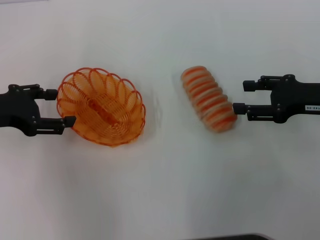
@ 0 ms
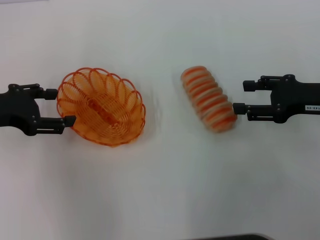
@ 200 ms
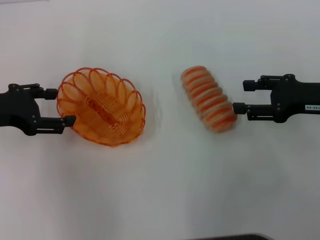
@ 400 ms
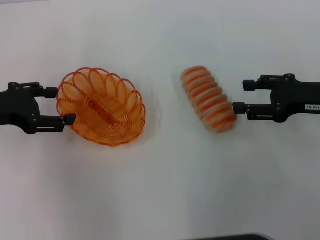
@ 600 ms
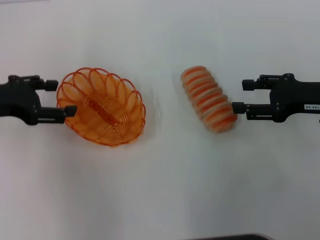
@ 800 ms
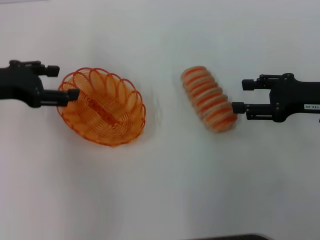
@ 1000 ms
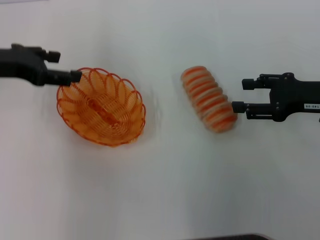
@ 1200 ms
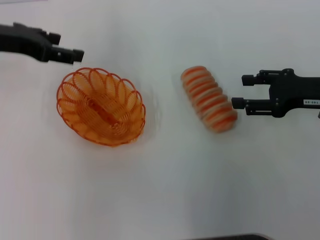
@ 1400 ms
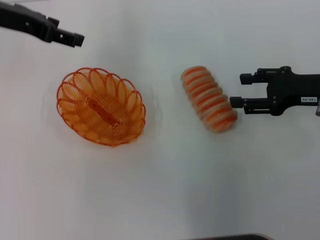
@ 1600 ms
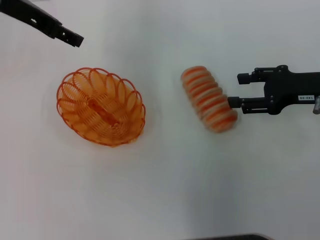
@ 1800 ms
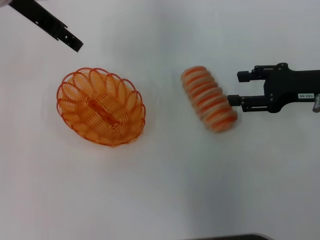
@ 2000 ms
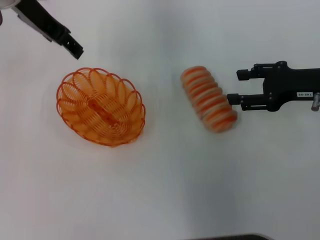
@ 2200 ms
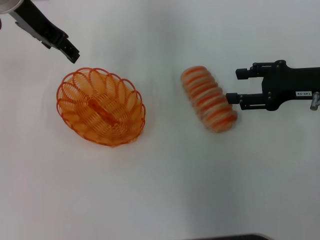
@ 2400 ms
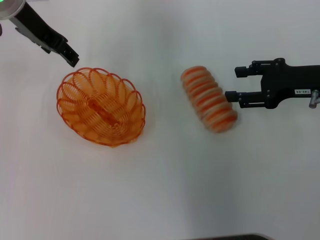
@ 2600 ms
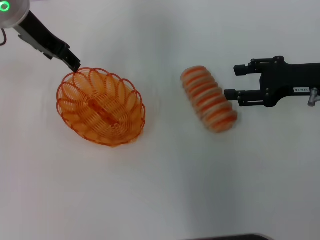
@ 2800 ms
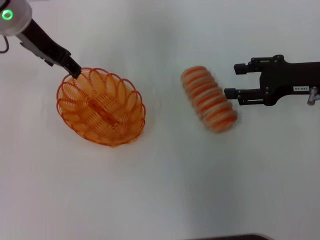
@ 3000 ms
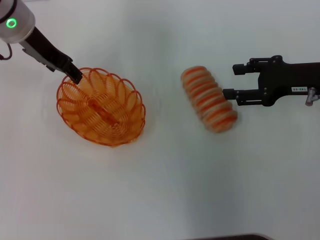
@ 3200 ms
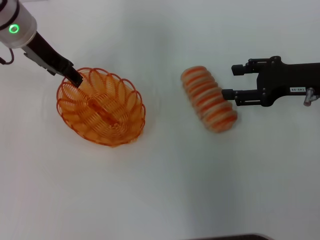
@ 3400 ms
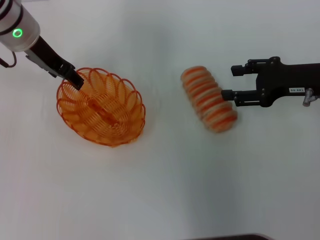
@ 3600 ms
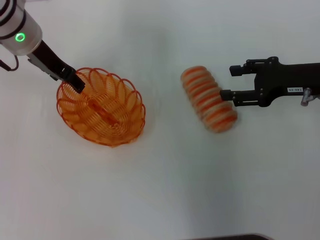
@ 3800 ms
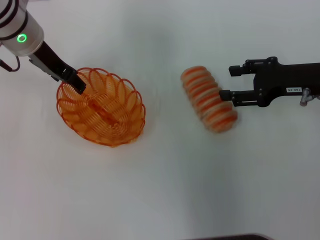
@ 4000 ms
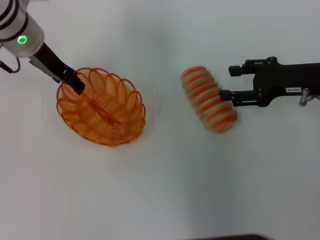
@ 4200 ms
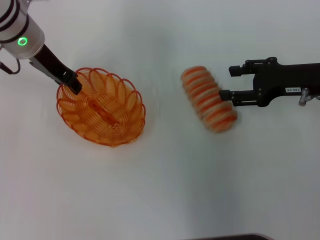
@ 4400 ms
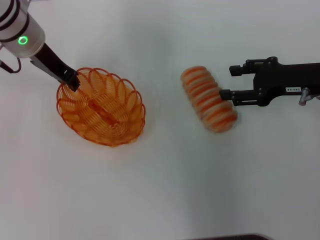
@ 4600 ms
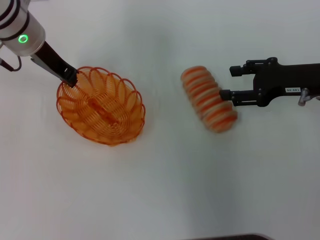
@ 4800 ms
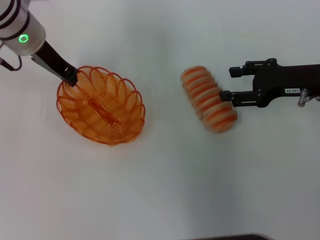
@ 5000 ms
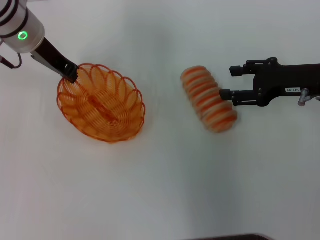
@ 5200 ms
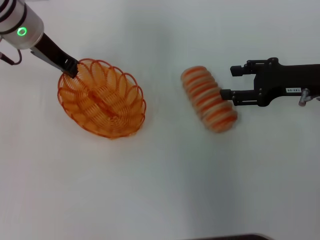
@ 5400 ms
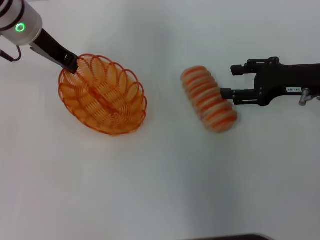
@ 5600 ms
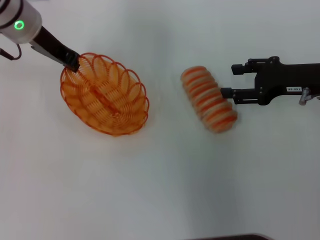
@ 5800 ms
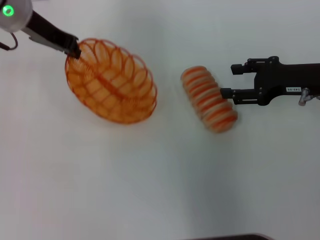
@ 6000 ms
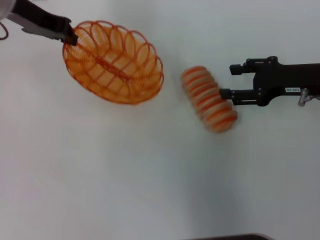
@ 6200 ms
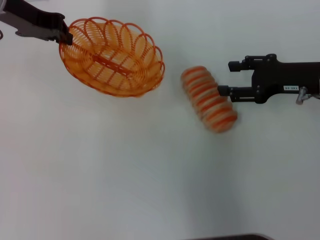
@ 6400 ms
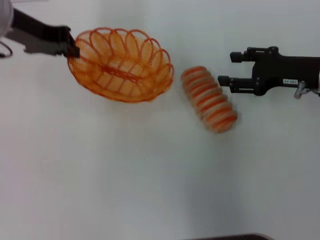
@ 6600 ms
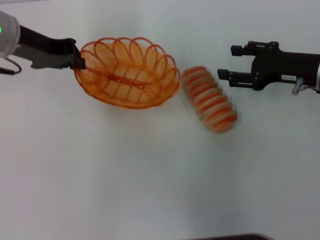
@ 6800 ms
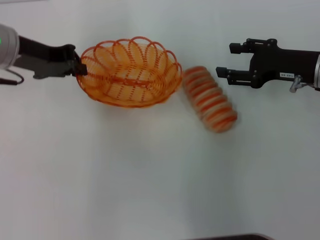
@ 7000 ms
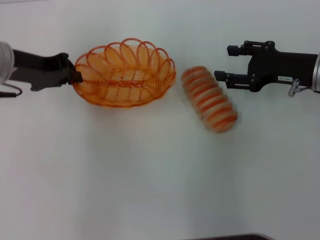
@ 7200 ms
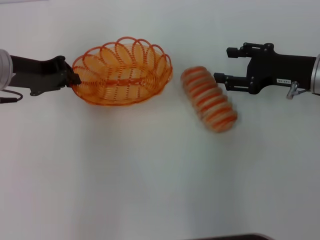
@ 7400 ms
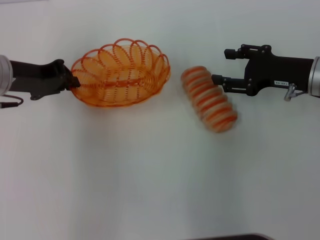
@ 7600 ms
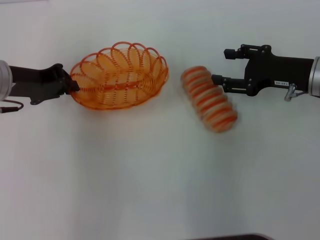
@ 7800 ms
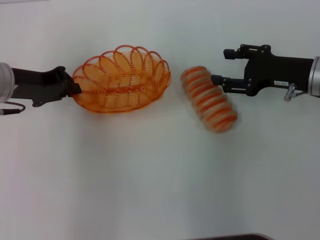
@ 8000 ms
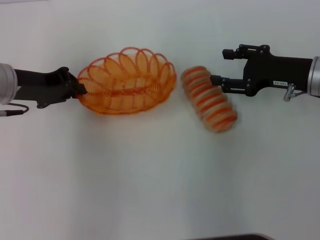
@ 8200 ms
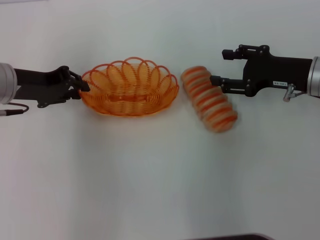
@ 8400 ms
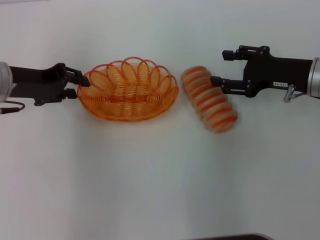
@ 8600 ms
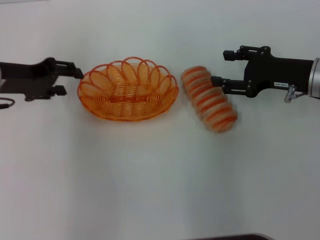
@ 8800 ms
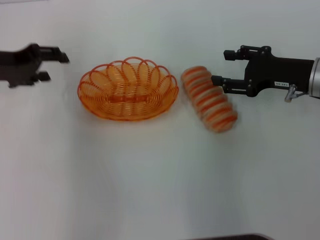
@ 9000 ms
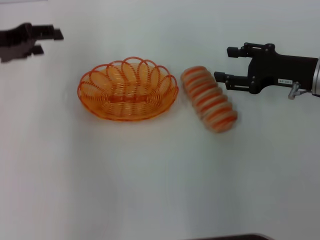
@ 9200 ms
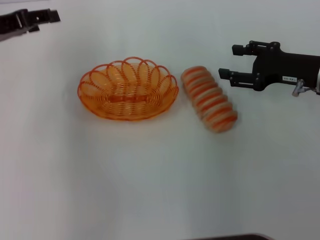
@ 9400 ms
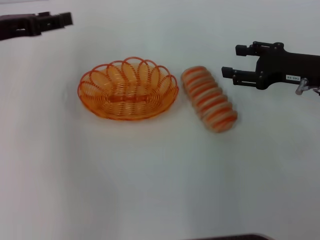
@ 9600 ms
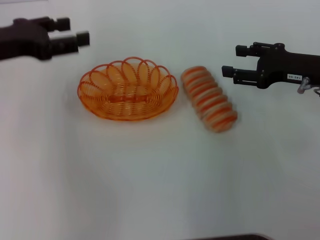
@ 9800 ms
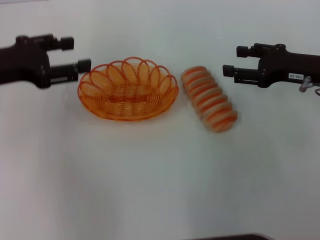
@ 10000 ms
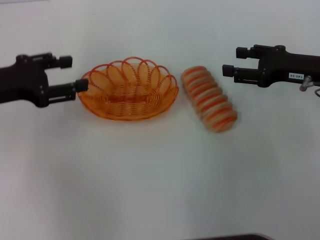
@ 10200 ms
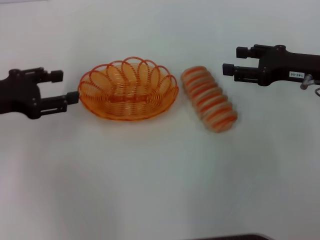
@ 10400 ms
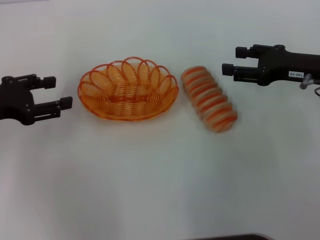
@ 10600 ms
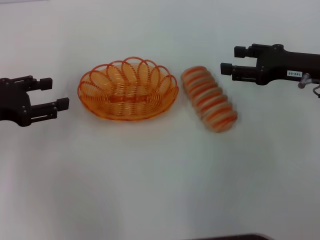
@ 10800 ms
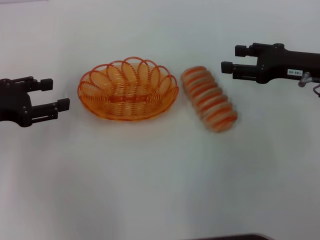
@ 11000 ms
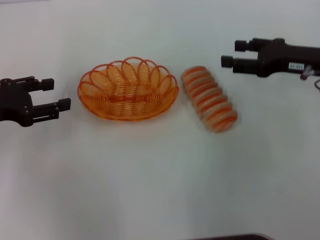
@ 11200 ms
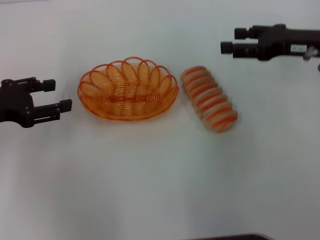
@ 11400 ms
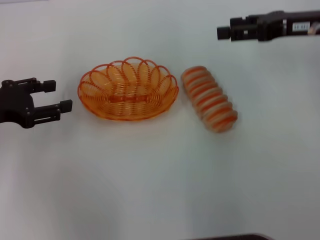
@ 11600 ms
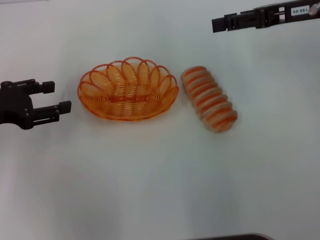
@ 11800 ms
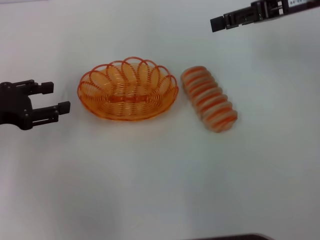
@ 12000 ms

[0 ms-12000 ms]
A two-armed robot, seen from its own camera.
Step, 0 ms to 6200 ms: Pick up the basket with the left gripper.
Step, 6400 ms to 9200 ms: Place the basket in the center of view with the left gripper.
0 ms to 1600 ms: The left gripper goes some 15 cm forward, upward and to the right.
1600 ms to 3000 ms: The left gripper moves to the right, roughly 5 cm.
3000 ms to 4400 ms: There are only small adjustments of the grippers.
4400 ms to 6000 ms: The left gripper closes its fingers.
6000 ms to 7600 ms: The left gripper shifts roughly 10 cm backward and downward.
7600 ms to 9000 ms: The left gripper opens up.
9000 ms to 10400 ms: The left gripper moves about 5 cm.
10400 ms to 12000 ms: The right gripper travels upward and forward by roughly 15 cm.

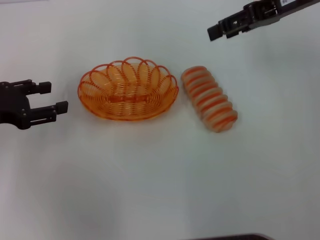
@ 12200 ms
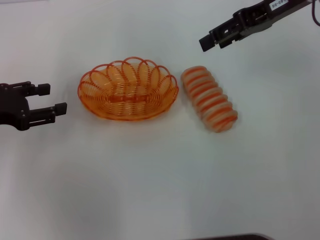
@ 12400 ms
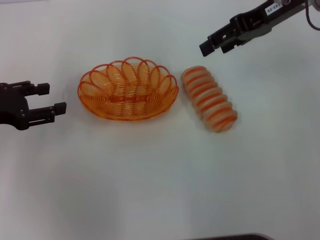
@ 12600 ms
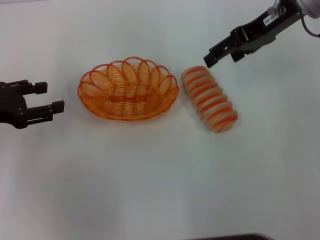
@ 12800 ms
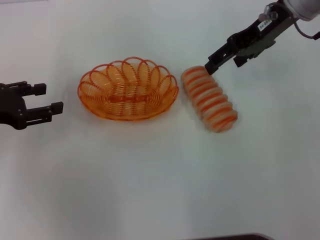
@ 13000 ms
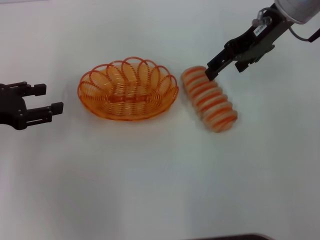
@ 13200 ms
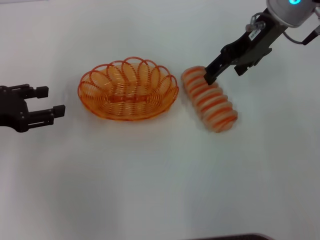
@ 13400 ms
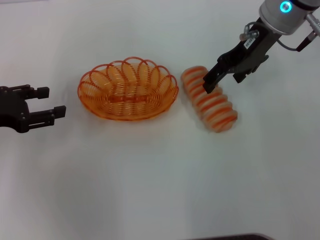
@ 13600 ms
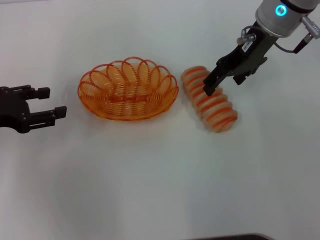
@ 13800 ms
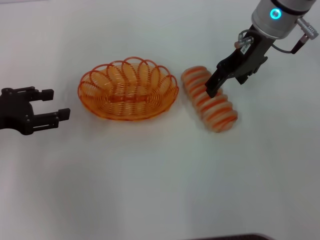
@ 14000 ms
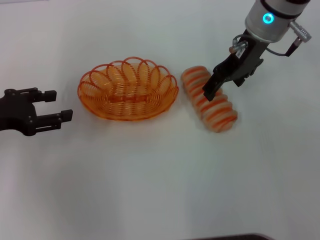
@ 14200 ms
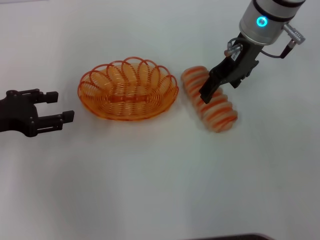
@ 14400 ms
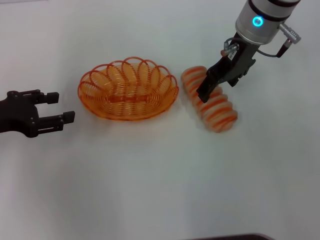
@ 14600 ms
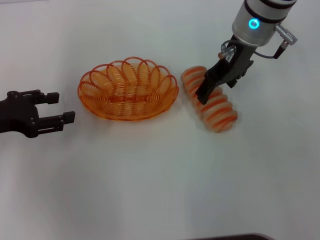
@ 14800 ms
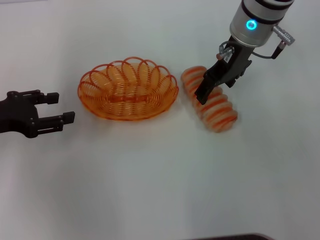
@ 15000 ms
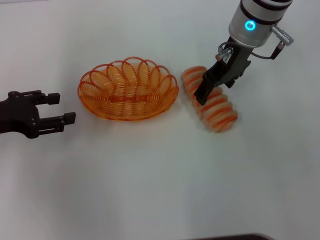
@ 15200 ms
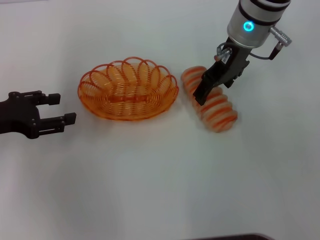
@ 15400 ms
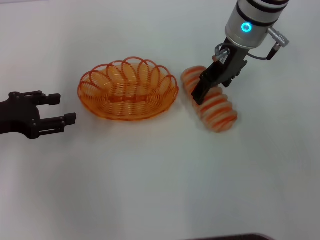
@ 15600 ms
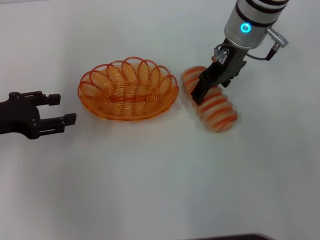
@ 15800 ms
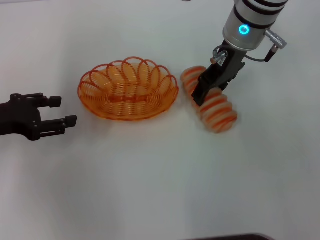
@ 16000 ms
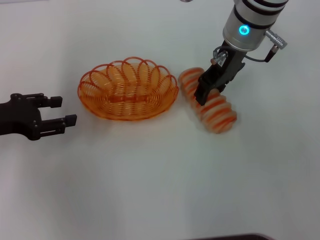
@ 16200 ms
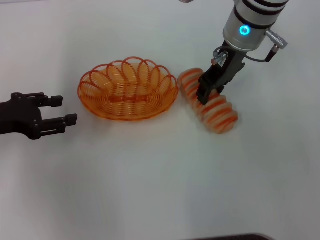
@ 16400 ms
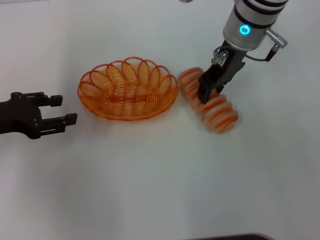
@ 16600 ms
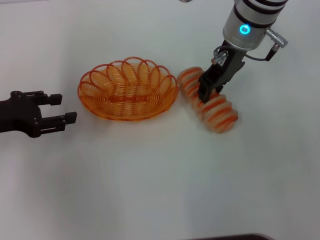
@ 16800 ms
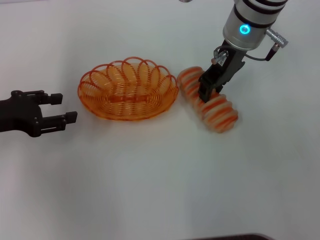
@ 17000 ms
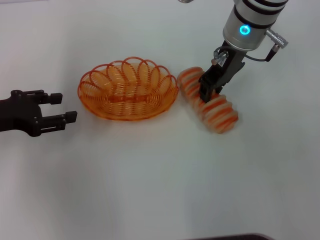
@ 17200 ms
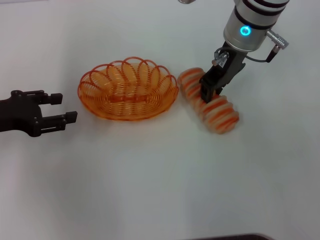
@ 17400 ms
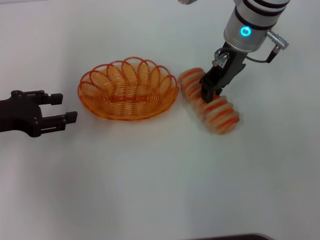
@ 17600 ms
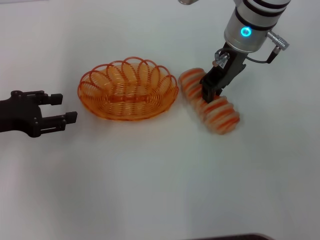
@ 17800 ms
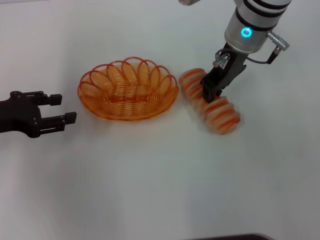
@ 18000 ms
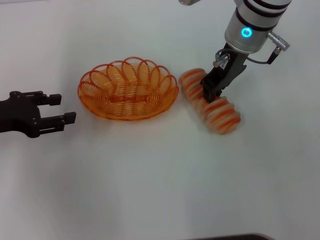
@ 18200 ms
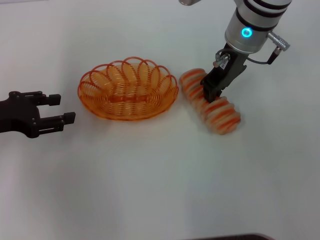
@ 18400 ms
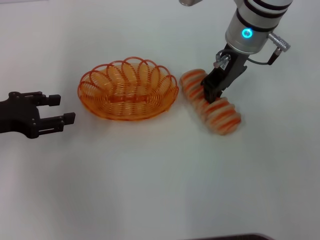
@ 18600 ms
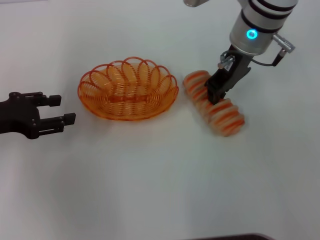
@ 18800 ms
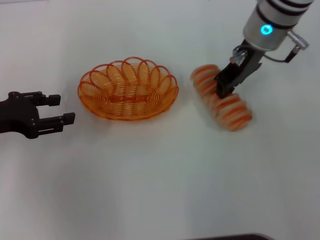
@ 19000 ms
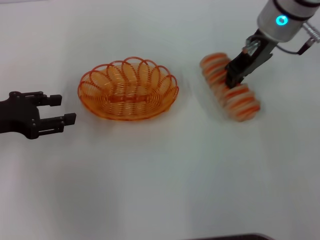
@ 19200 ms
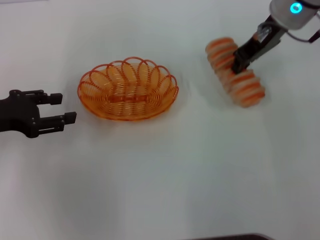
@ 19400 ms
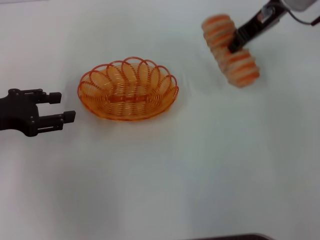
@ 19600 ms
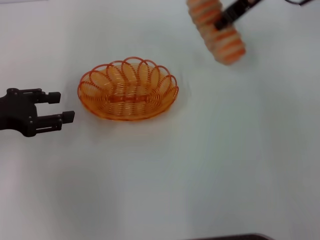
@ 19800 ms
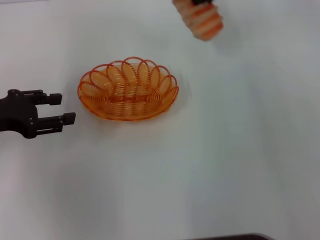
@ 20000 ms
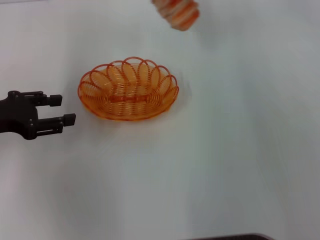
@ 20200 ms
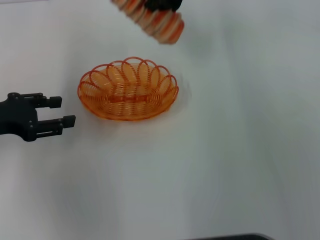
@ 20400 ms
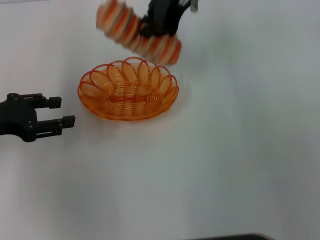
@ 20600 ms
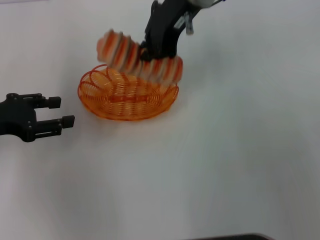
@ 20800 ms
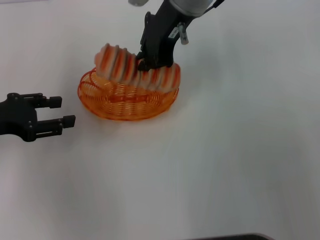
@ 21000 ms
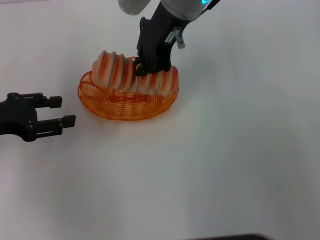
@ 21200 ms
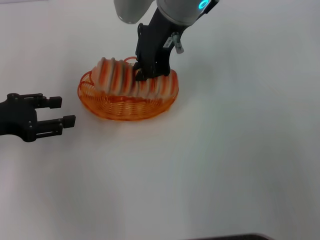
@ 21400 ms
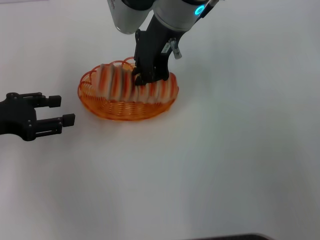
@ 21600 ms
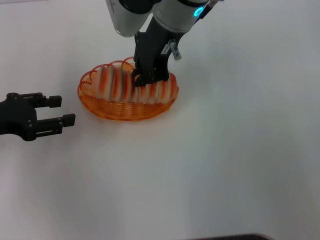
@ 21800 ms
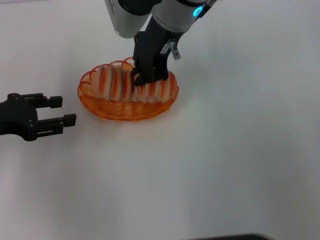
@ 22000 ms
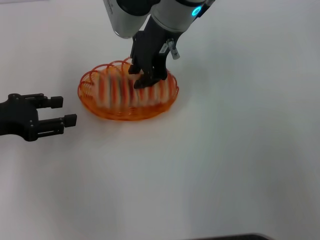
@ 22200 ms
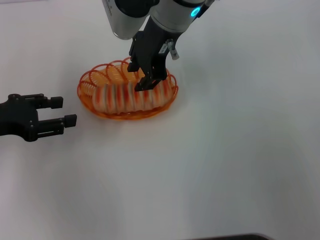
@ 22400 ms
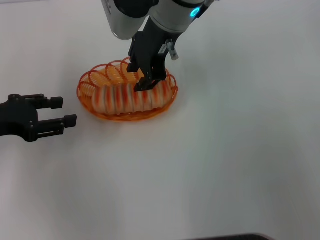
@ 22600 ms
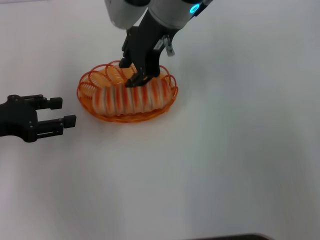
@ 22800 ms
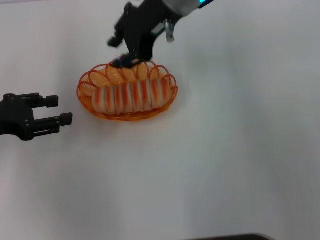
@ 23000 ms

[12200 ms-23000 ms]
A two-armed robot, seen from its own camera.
Step, 12200 ms to 19600 ms: Pick up the long bread with the right gripper.
12200 ms to 13800 ms: The right gripper travels to the left by roughly 10 cm.
13800 ms to 15200 ms: The grippers stay close to where they were, moving slightly.
15200 ms to 16800 ms: The right gripper closes up.
16800 ms to 18400 ms: The right gripper closes.
18400 ms to 20000 ms: The right gripper heads upward, covering some 10 cm.
20000 ms to 21400 ms: The right gripper travels to the left by approximately 10 cm.
21400 ms to 23000 ms: The right gripper opens.
